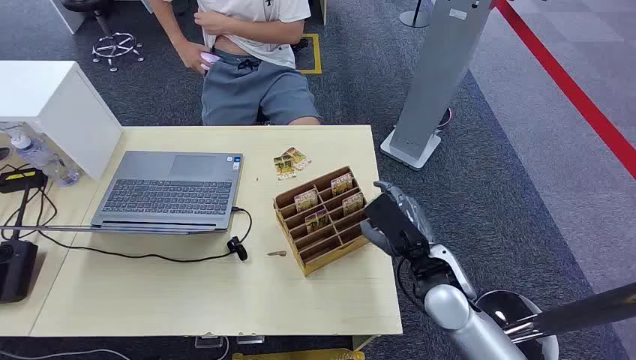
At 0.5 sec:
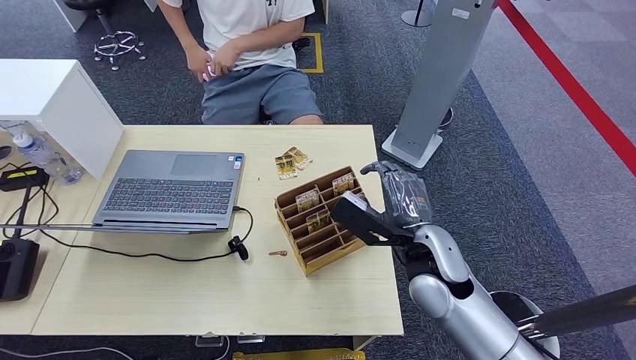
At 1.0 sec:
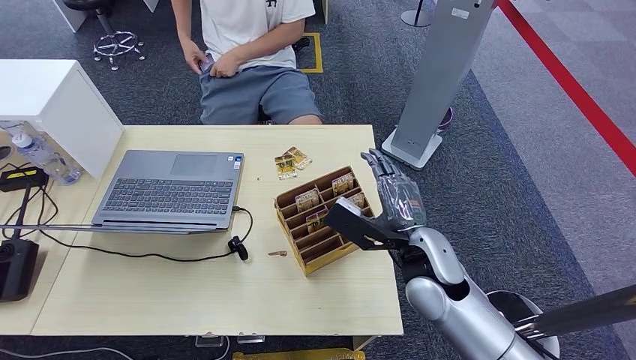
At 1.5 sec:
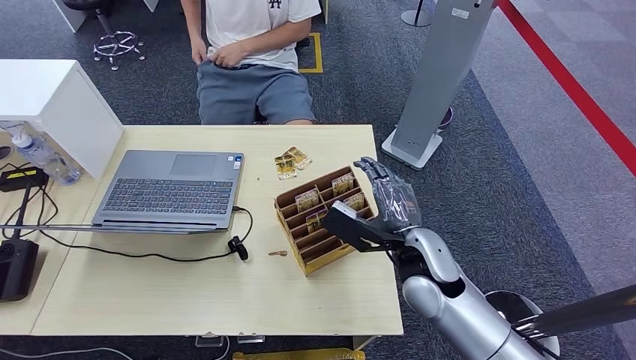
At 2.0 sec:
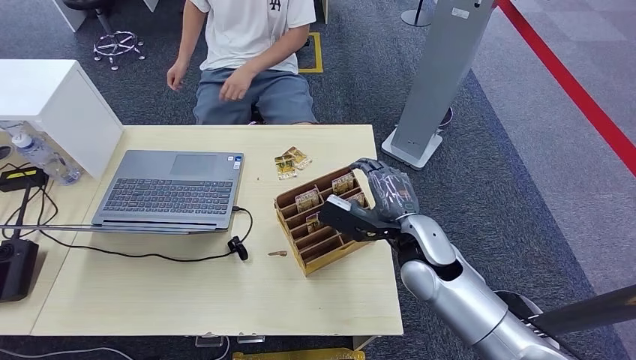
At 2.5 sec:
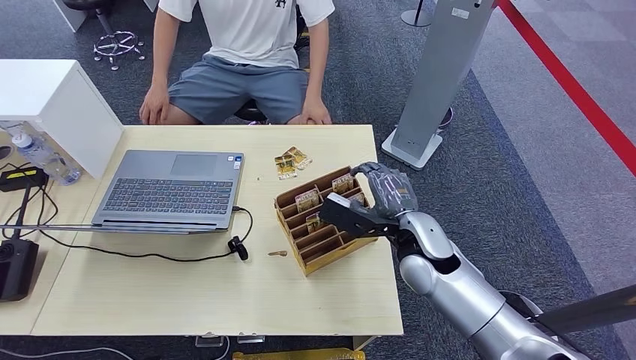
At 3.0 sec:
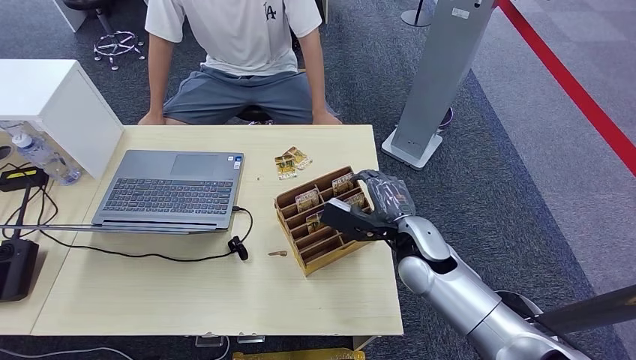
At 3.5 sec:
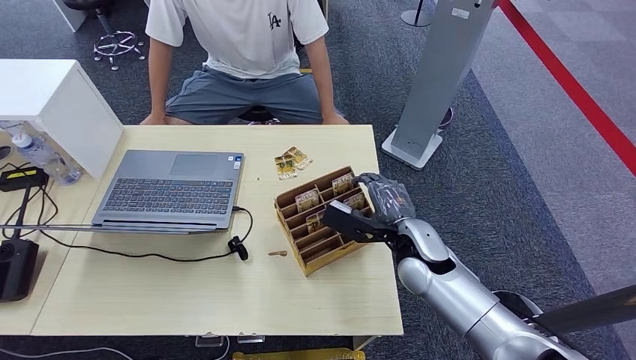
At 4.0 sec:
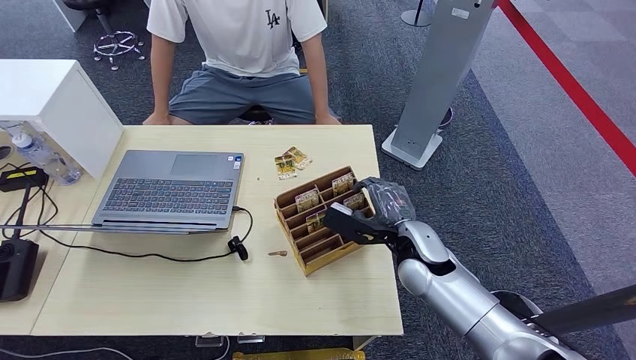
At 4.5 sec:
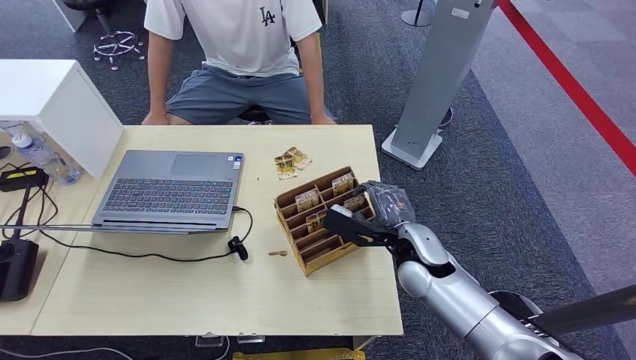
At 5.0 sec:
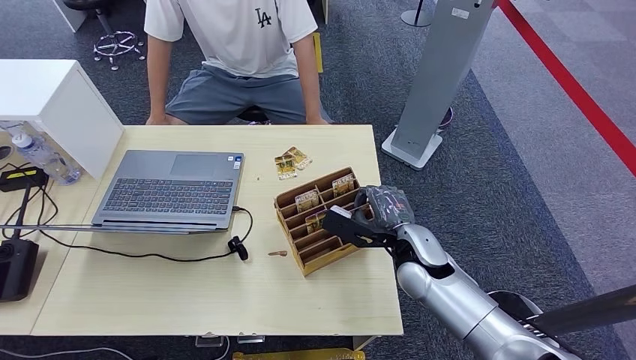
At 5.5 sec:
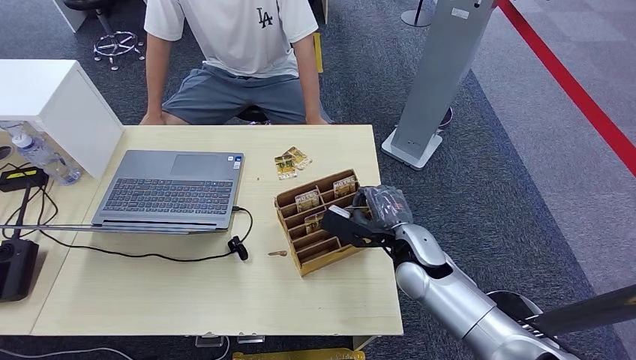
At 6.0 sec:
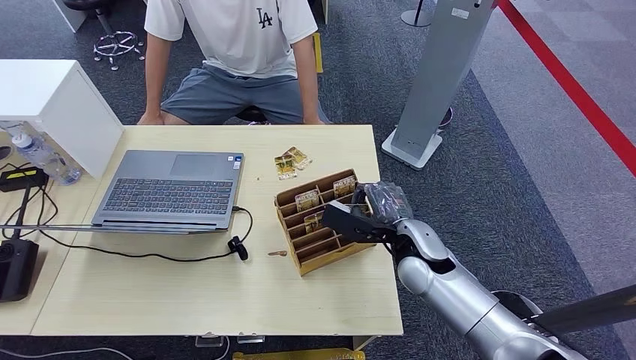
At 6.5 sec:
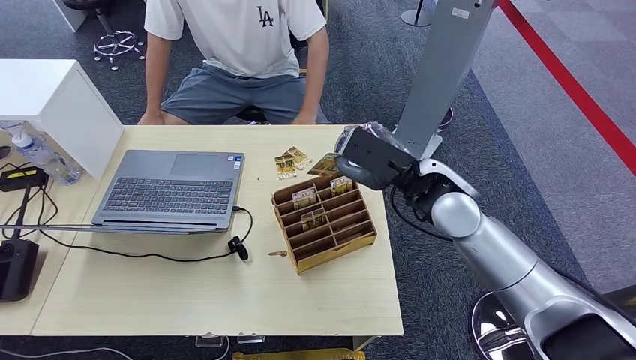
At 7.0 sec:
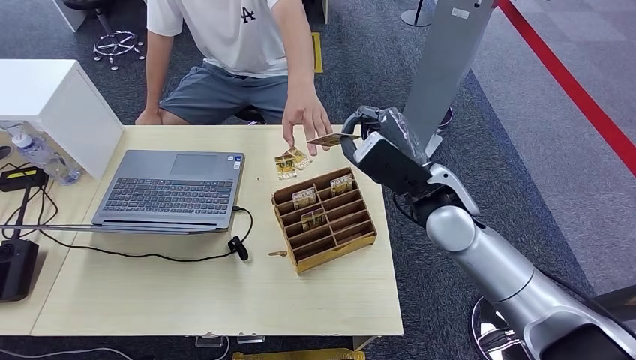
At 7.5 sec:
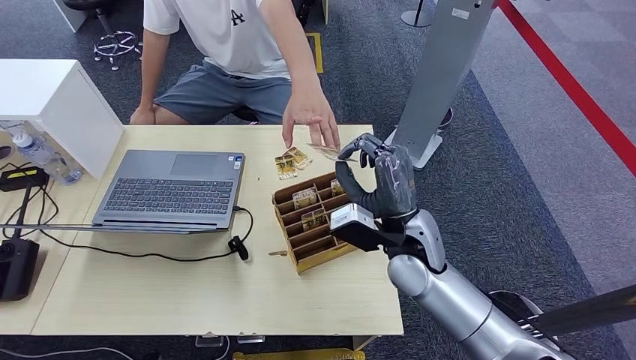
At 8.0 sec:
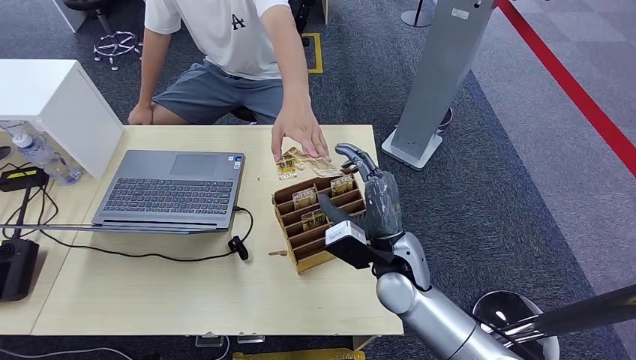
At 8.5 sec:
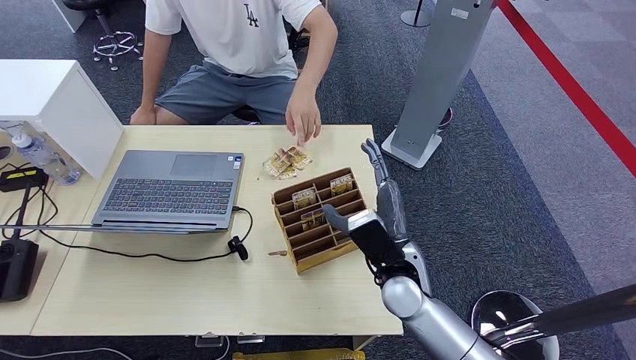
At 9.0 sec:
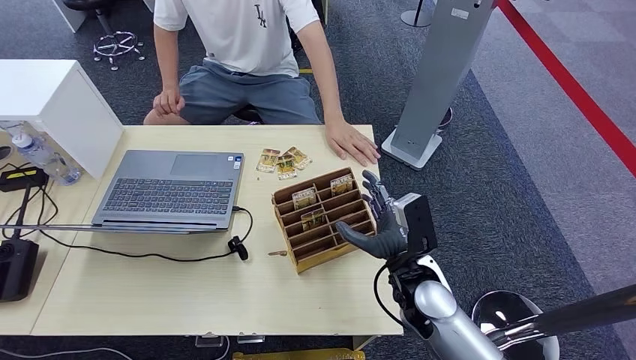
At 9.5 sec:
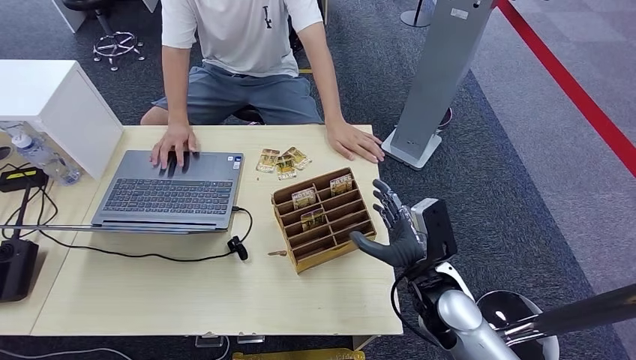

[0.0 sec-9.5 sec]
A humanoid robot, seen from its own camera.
Step, 0.0 sec to 6.5 sec: Pick up the key card from the card box.
Step, 7.0 sec to 9.5 sec: Hand the key card to the target.
2.0 sec to 4.0 sec: The hands move only a little.
4.0 sec to 5.5 sec: Both hands stay put.
5.5 sec to 7.5 sec: The right hand shifts roughly 5 cm upward.
7.5 sec to 9.5 sec: The right hand goes approximately 10 cm downward, backward and to the right.
